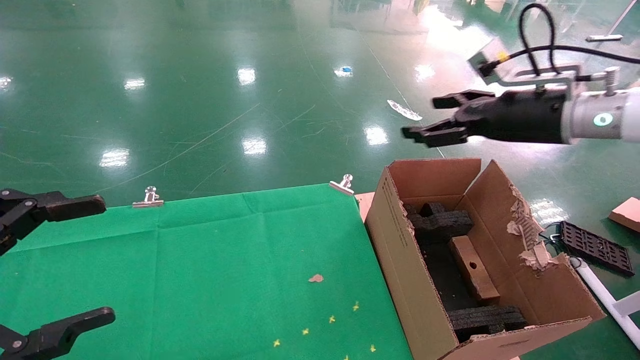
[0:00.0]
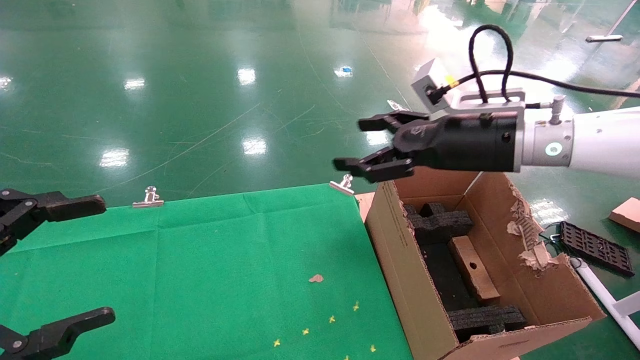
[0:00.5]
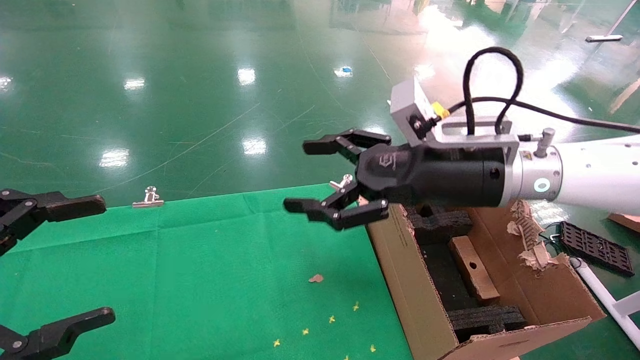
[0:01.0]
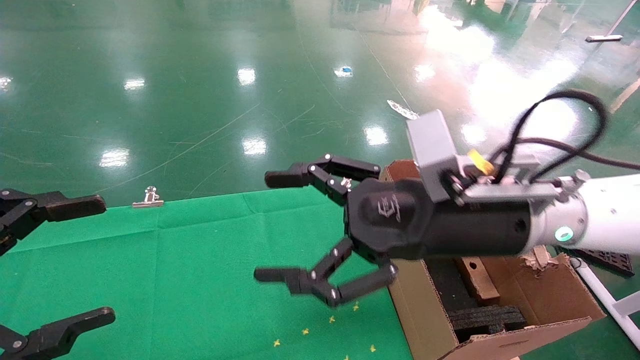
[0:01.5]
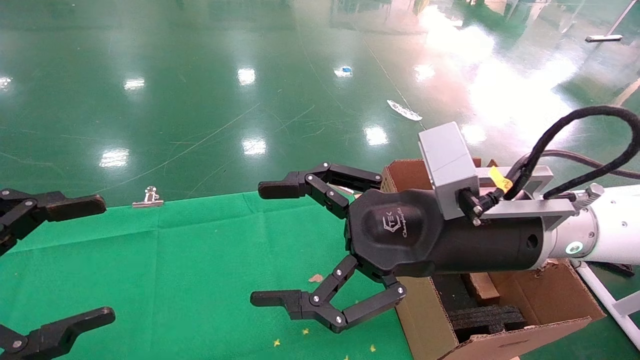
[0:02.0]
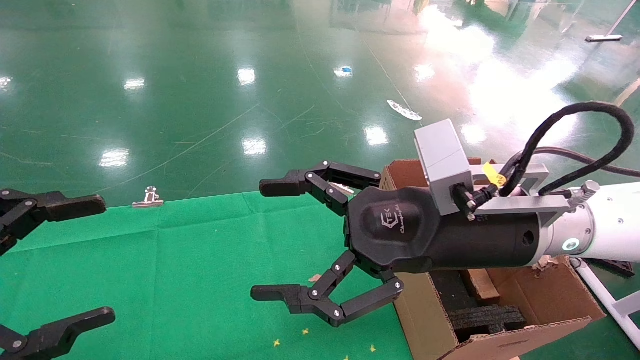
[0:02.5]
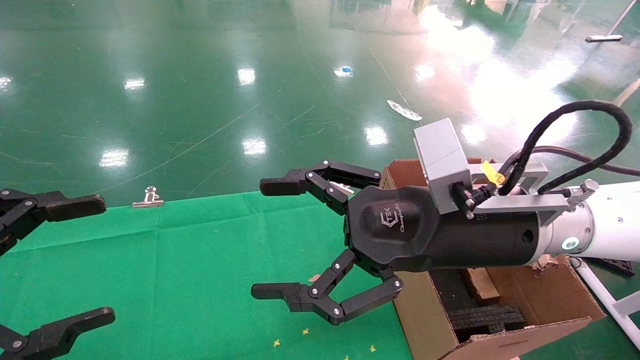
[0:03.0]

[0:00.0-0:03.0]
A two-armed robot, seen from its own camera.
Task of the whole recording: using a robotic arm to pick up a cardboard box and palace it the carton.
0:00.0 to 0:01.5: The right gripper shifts some 20 cm to the left and backward.
0:01.5 to 0:03.0: There are only small adjustments of the grippers.

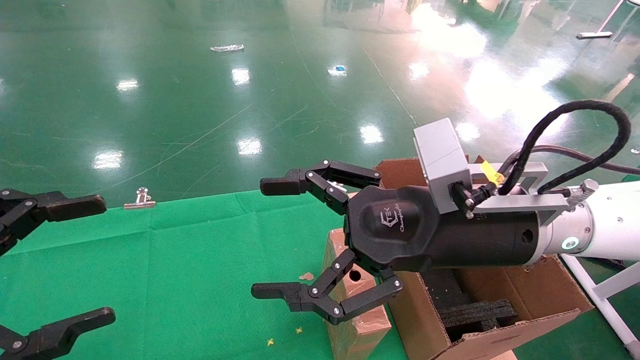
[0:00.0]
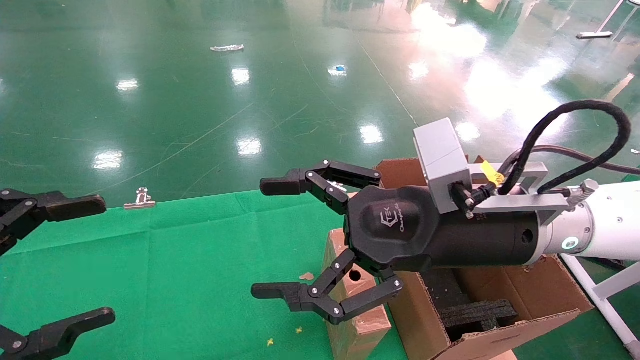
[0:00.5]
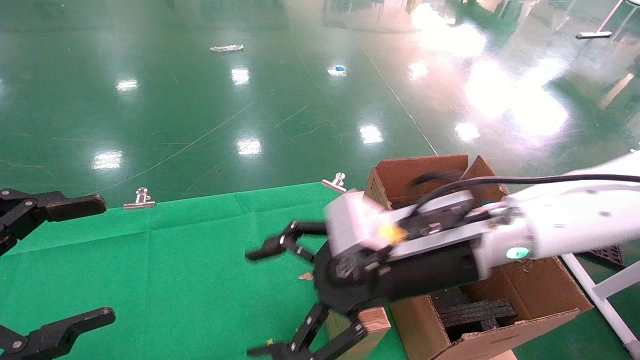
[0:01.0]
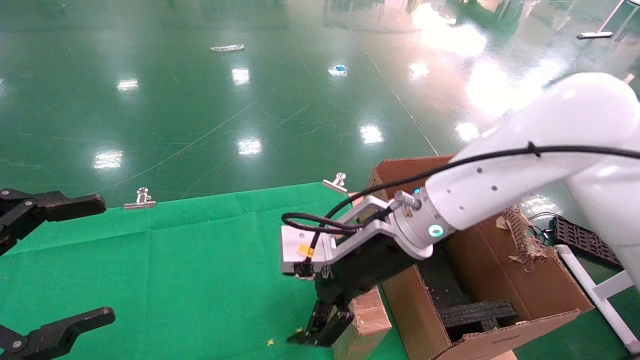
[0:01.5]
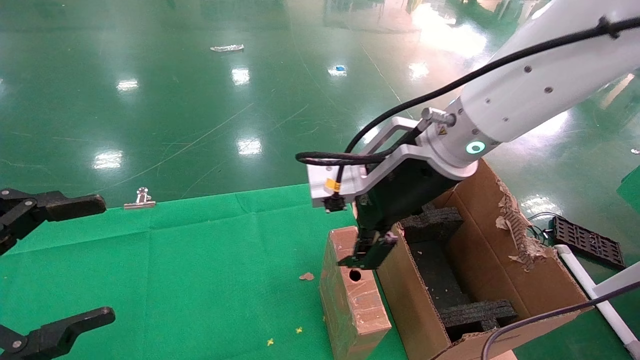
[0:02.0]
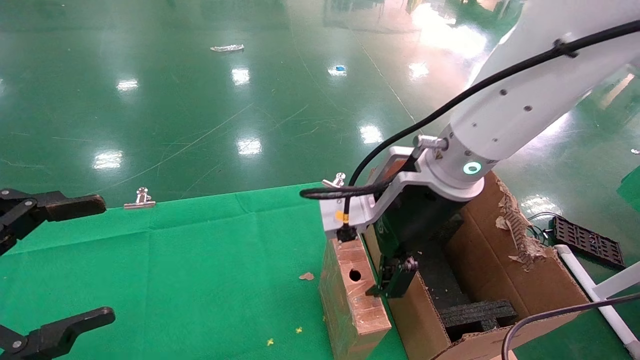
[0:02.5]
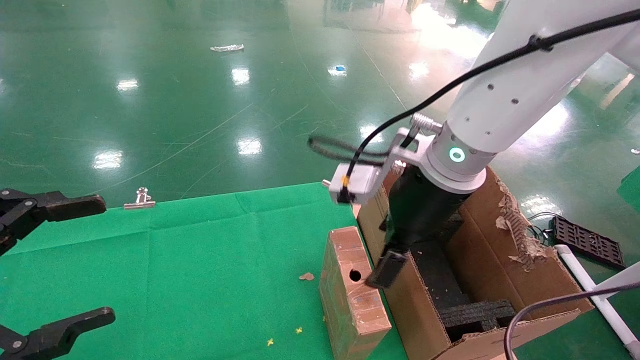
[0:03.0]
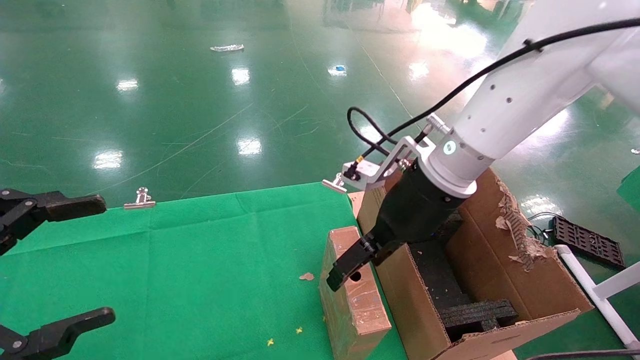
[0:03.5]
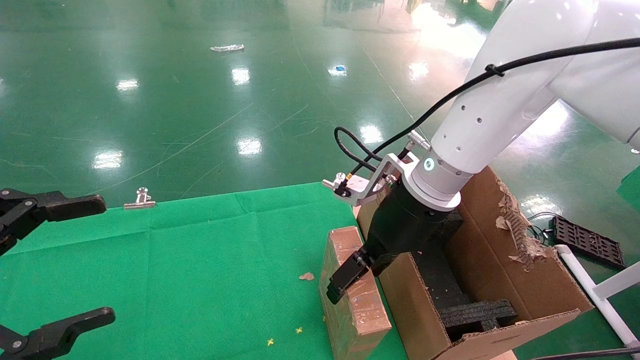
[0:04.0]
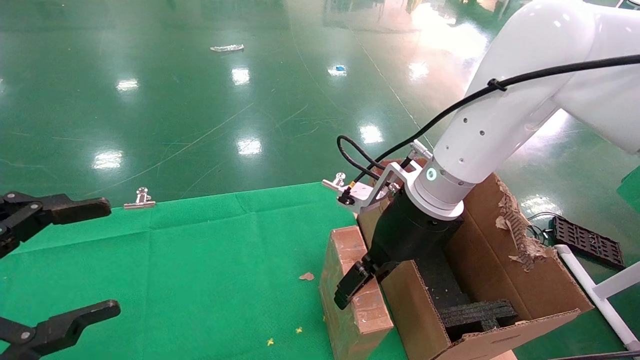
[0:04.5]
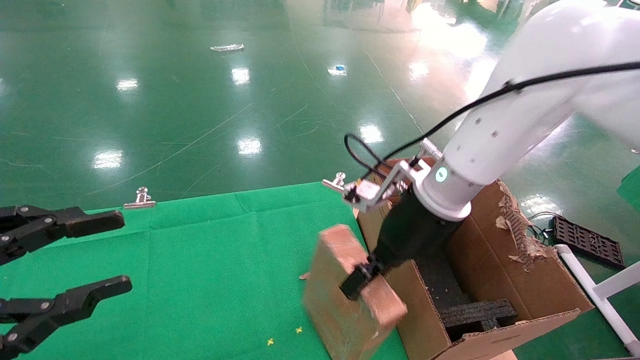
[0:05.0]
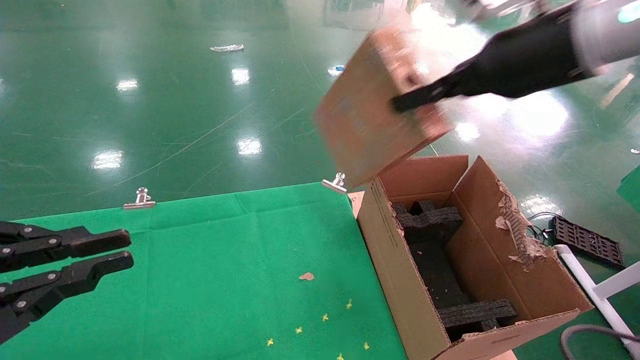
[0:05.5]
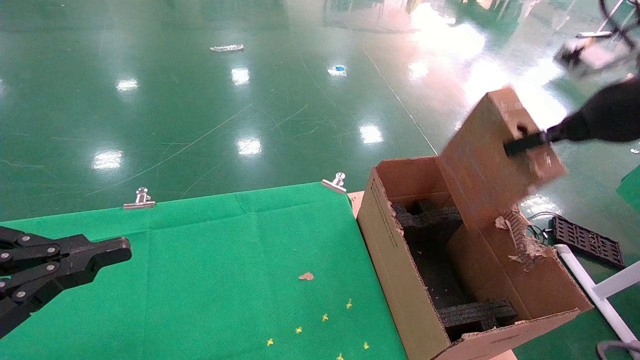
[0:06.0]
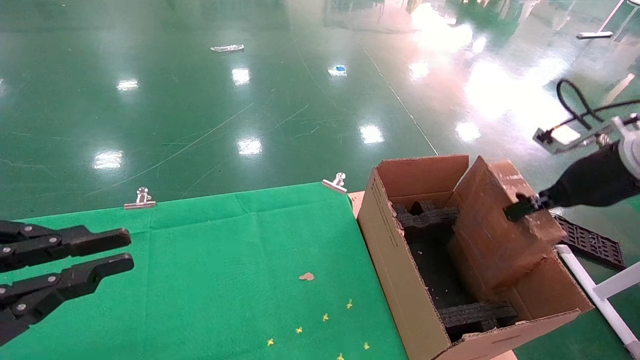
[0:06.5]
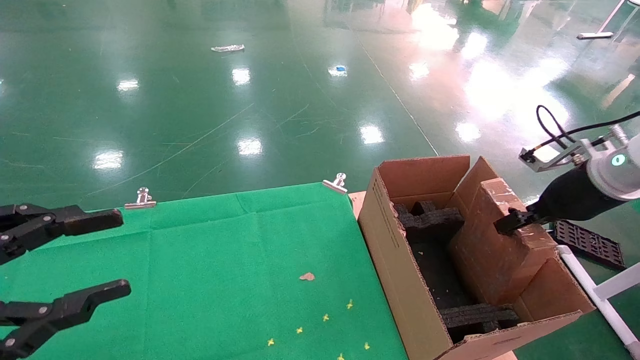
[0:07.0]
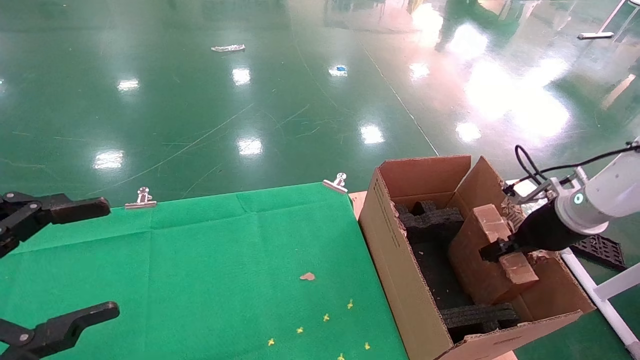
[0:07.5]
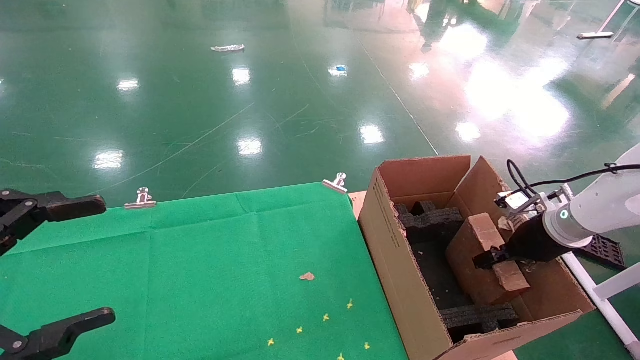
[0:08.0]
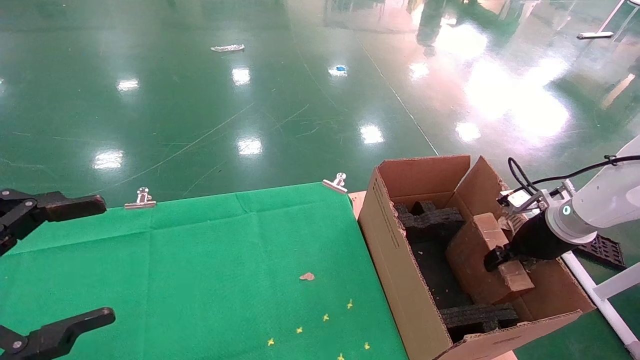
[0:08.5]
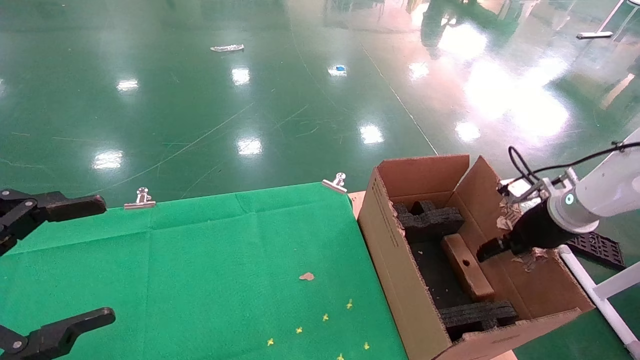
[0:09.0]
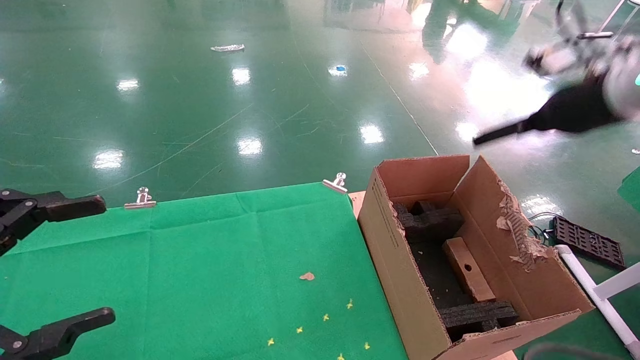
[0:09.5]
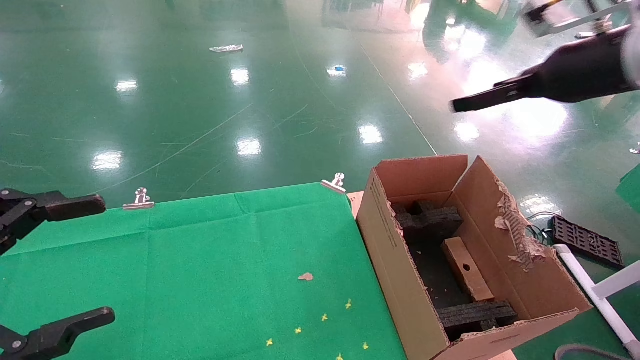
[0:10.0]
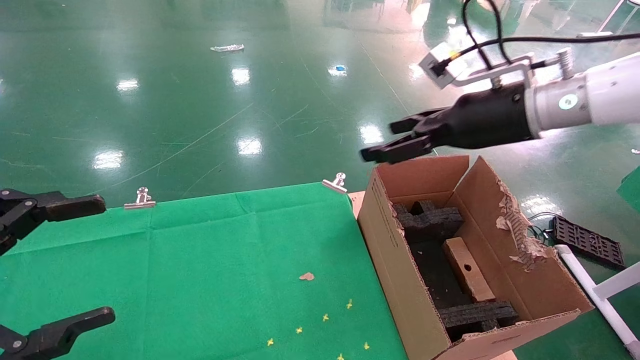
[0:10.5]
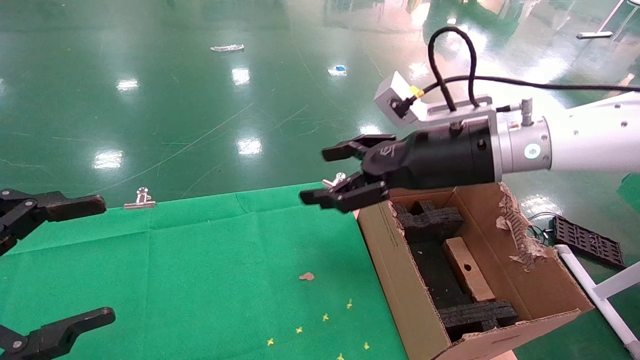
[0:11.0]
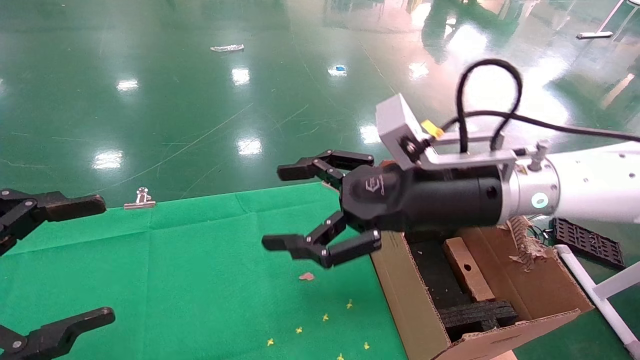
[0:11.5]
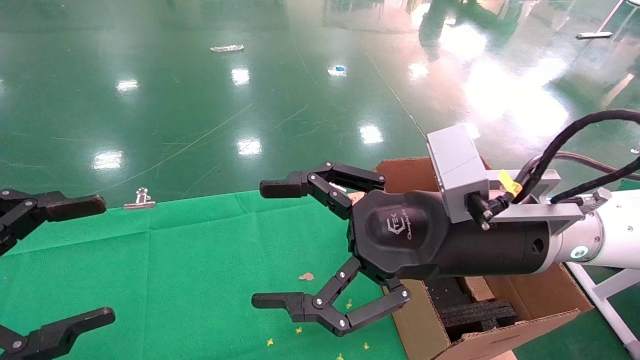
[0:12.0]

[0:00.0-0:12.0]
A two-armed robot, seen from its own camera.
Task of the whole recording: using a robotic arm to pick up a cardboard box and palace it the carton.
Step, 0:01.5 to 0:05.0: Pick up the mouse and the power cord paper box.
Step, 0:05.5 to 0:10.0: Place the mouse and the power cord paper box into the container.
0:00.0 to 0:02.0: The right gripper moves forward, roughly 5 cm.
0:02.0 to 0:04.0: The right gripper moves downward, approximately 5 cm.
0:04.0 to 0:06.0: The right gripper shifts about 25 cm to the right and upward, and closes its fingers. The left gripper closes.
0:06.0 to 0:08.0: The right gripper moves downward, some 20 cm. Meanwhile the left gripper opens.
0:08.0 to 0:10.0: The right gripper heads upward, covering approximately 25 cm, and opens.
0:10.0 to 0:12.0: The right gripper goes approximately 25 cm to the left, downward and backward.

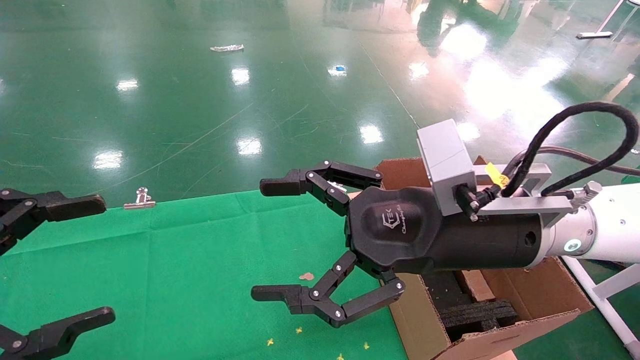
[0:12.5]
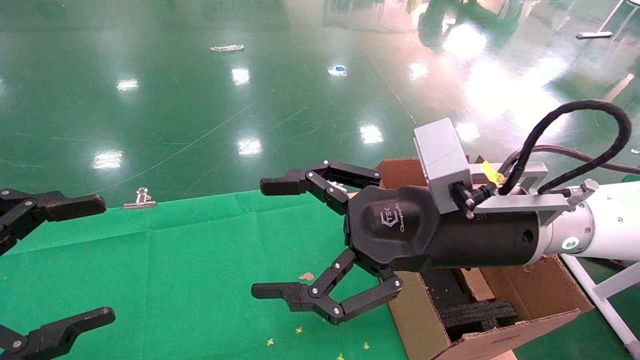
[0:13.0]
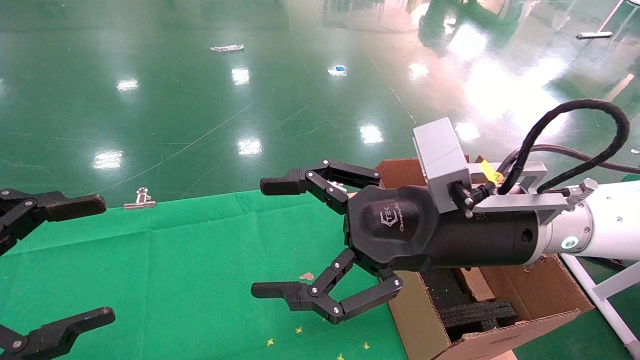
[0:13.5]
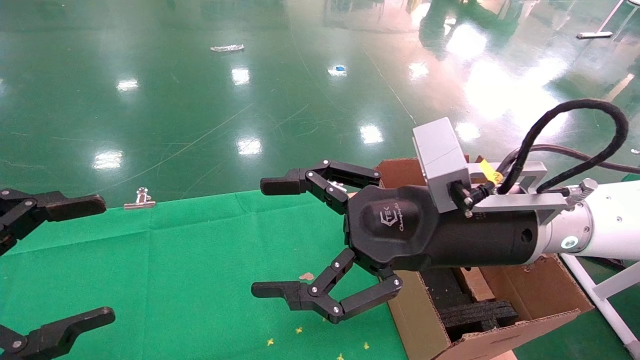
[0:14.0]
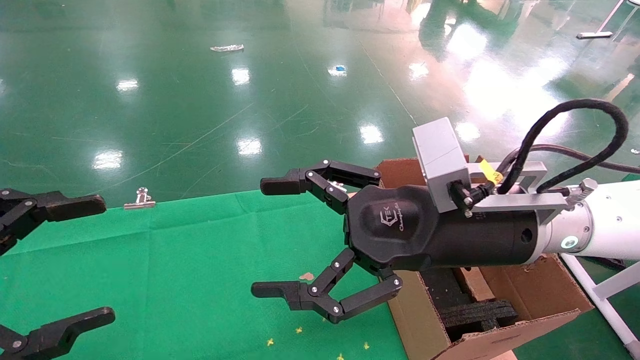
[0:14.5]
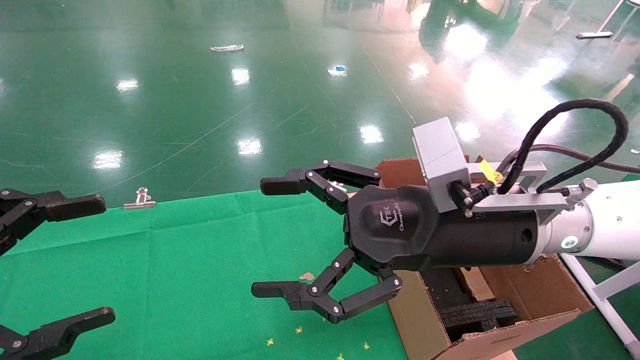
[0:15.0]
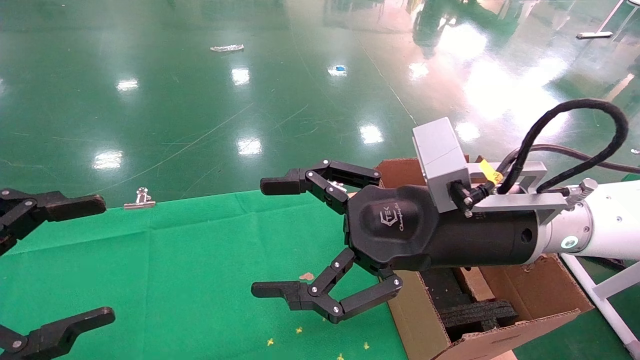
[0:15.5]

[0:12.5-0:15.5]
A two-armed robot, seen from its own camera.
Task of the whole recording: using a robotic arm to pick up a cardboard box and palace it the carton.
0:12.5 to 0:15.5: Both grippers stay about where they are.

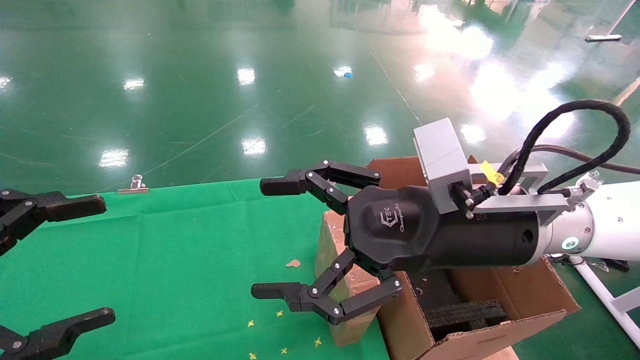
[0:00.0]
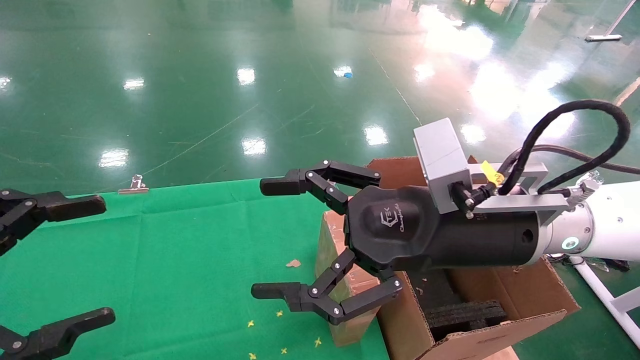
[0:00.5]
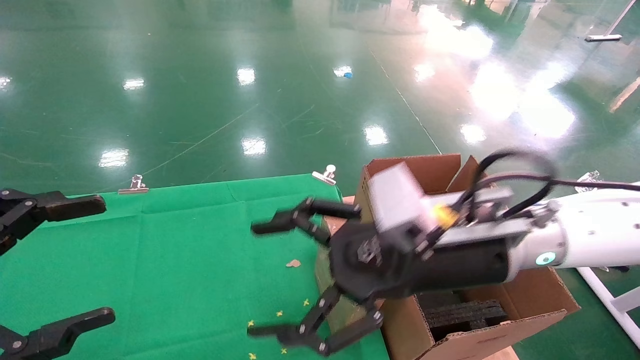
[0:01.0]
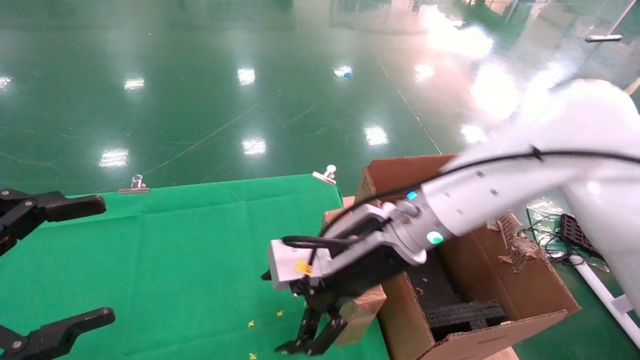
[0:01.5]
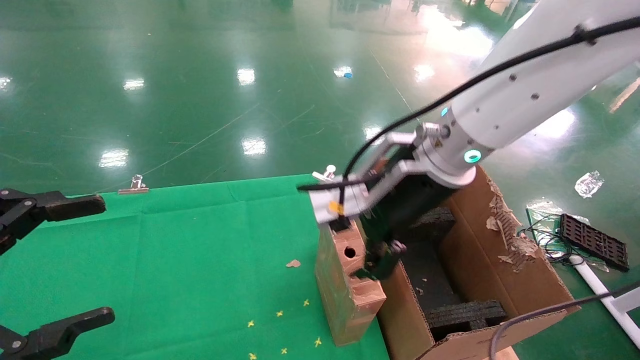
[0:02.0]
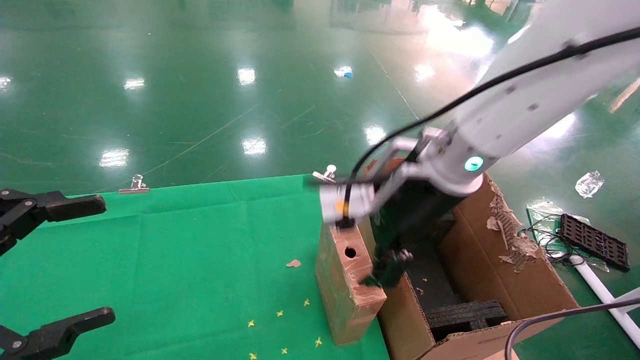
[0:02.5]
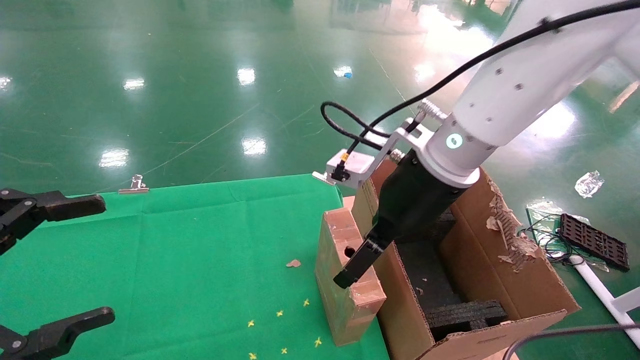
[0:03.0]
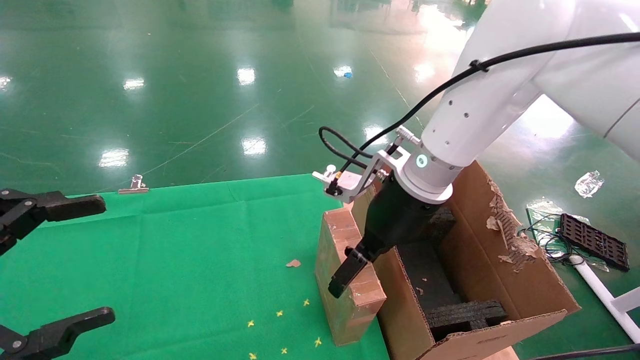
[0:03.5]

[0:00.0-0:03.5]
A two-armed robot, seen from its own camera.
Task of the whole recording: using a robotic arm to pick up a cardboard box and palace it the carton.
0:00.0 to 0:02.0: The right gripper moves forward, some 5 cm.
0:02.0 to 0:03.5: The right gripper shifts by approximately 5 cm.
